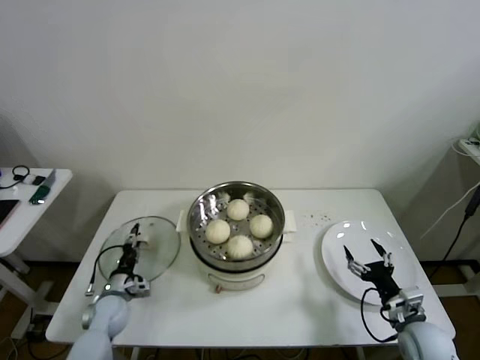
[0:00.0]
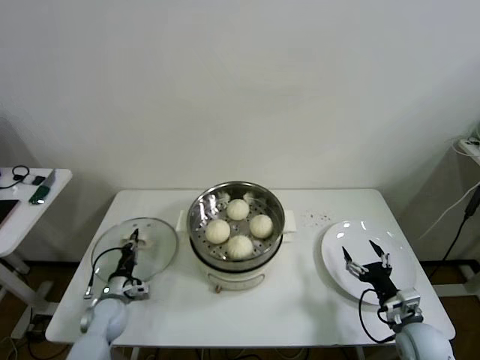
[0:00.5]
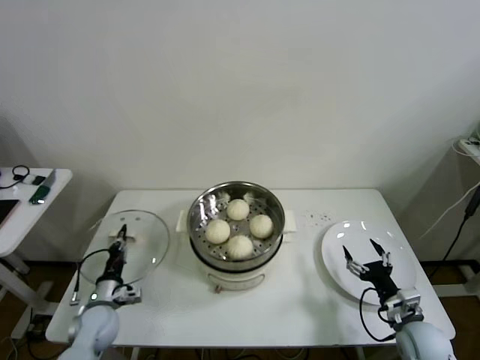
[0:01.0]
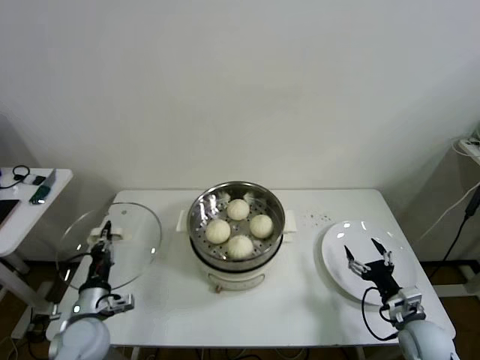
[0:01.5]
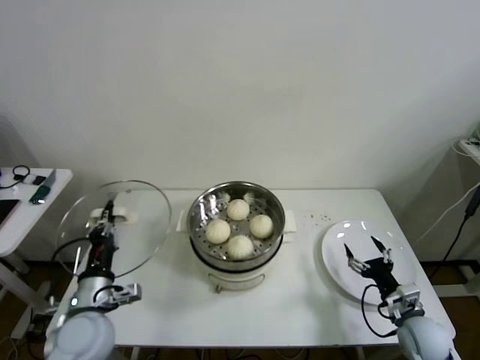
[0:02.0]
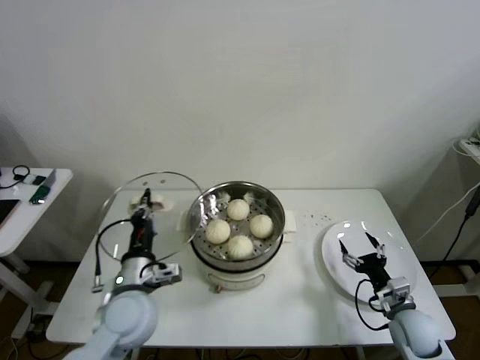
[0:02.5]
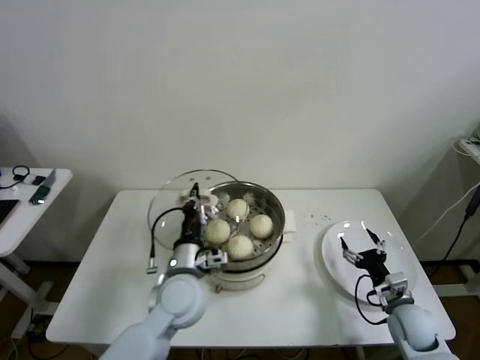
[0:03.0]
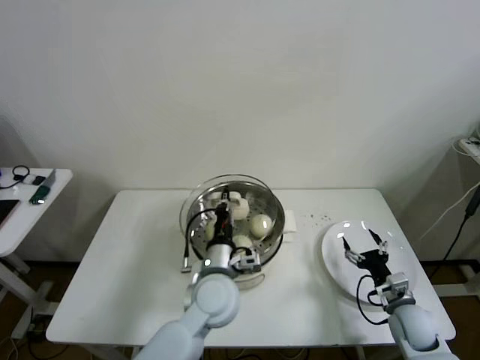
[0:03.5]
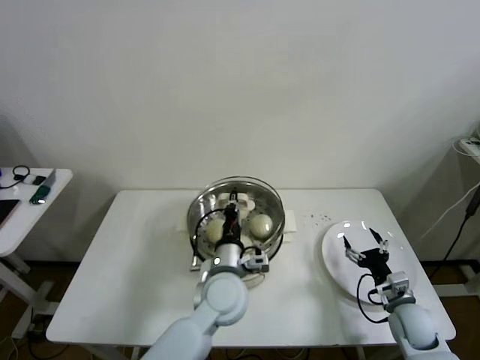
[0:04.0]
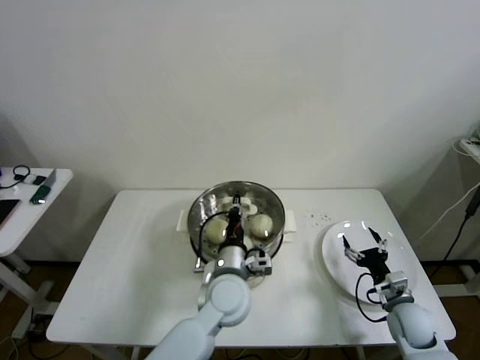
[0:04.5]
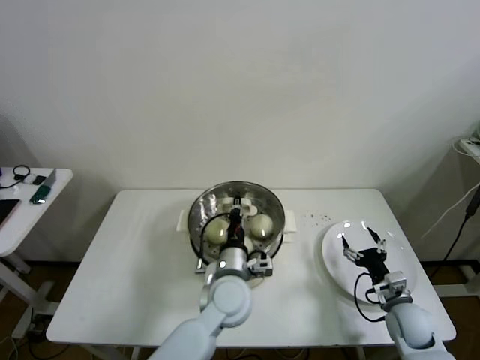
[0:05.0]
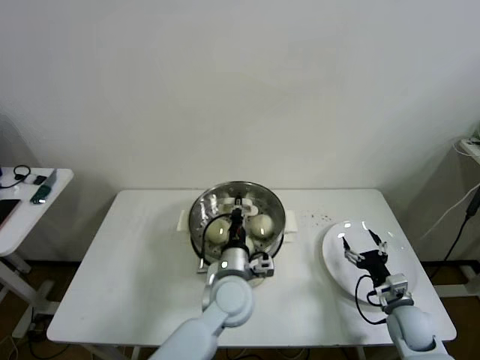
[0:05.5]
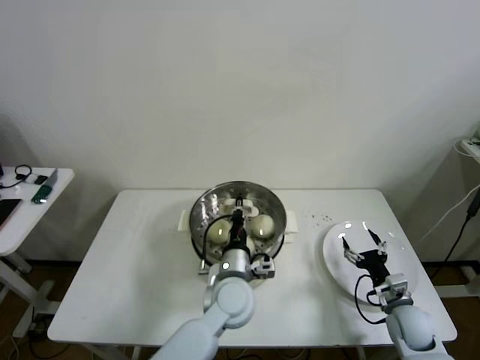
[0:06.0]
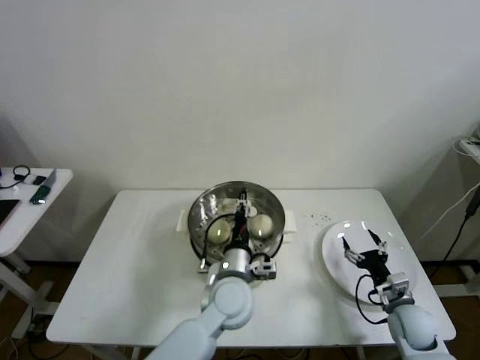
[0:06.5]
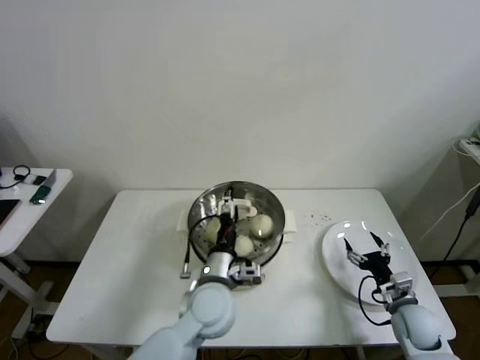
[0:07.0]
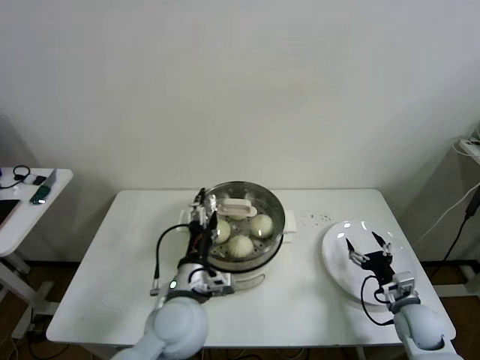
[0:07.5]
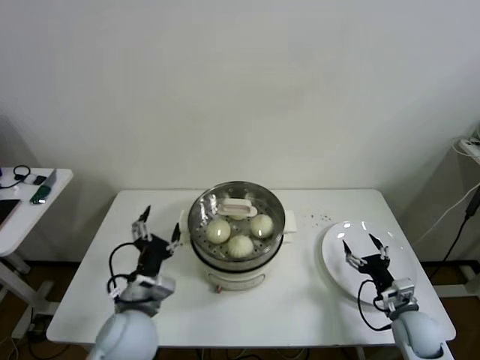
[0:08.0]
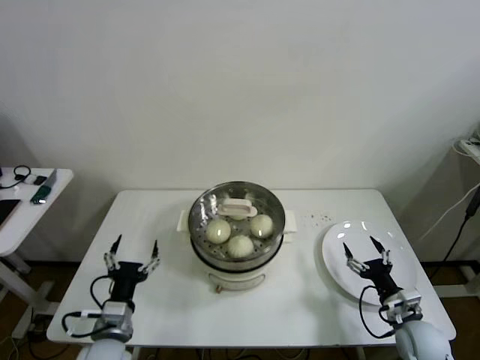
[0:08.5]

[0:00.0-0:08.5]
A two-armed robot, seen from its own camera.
Task of the whole recording: take steamed baozi put them in steamer then cover it.
Step, 0:00.5 to 0:06.5: Place the pot lid on the steamer with left gripper.
0:00.0 to 0:02.0: The left gripper goes some 20 cm upward and backward, and closes its fingers.
0:02.0 to 0:04.0: The left gripper heads to the right, covering approximately 25 cm.
0:04.0 to 0:06.5: The left gripper opens its fingers.
0:06.5 to 0:08.5: The left gripper heads to the left and backward, covering roughly 25 cm, and opens up.
